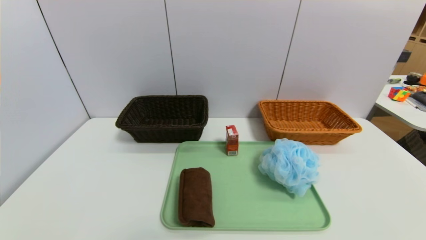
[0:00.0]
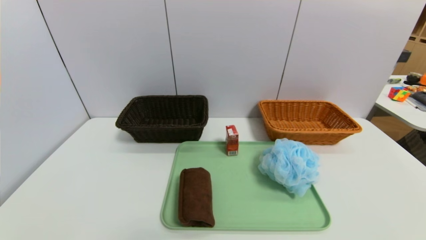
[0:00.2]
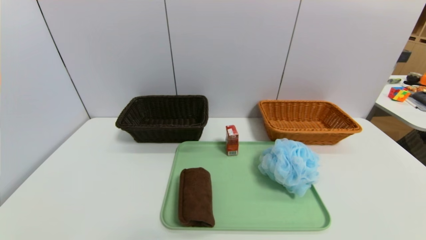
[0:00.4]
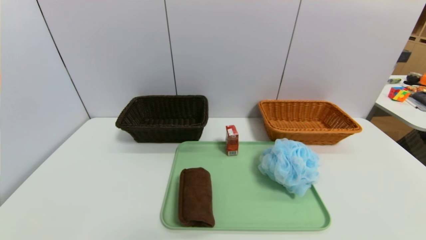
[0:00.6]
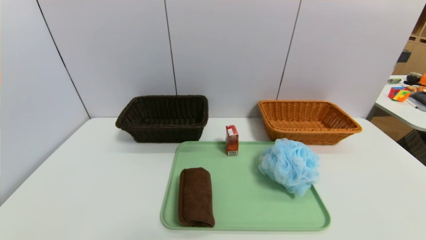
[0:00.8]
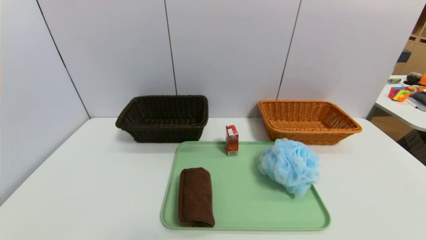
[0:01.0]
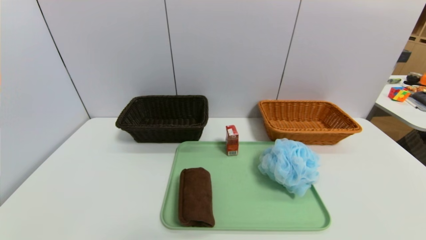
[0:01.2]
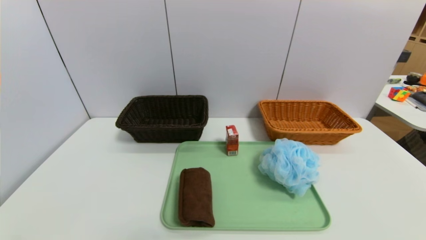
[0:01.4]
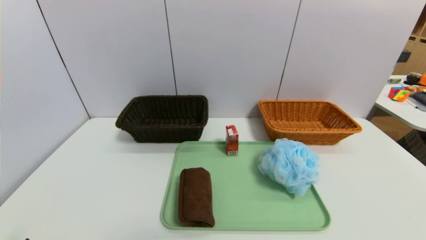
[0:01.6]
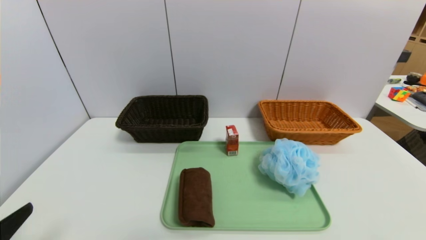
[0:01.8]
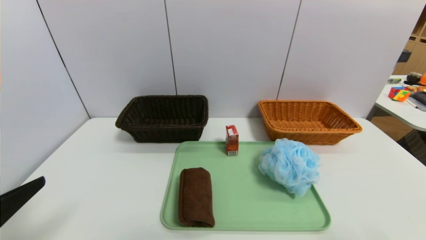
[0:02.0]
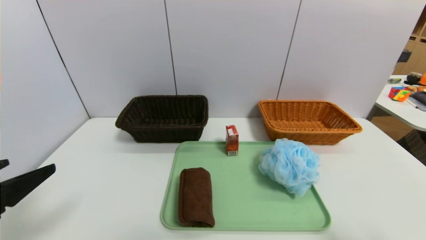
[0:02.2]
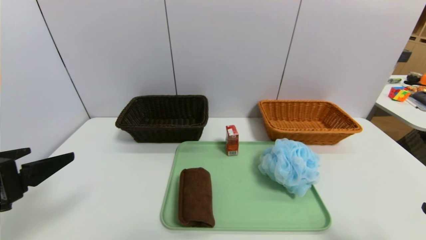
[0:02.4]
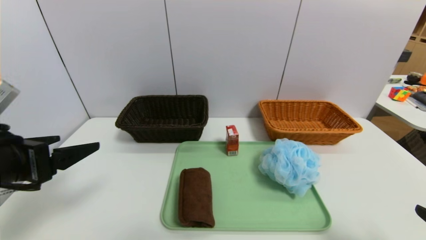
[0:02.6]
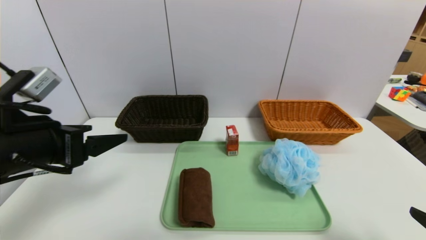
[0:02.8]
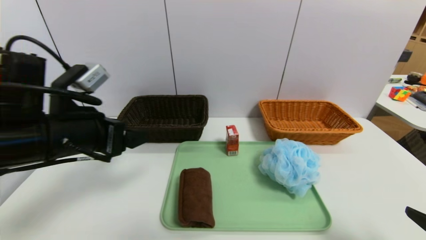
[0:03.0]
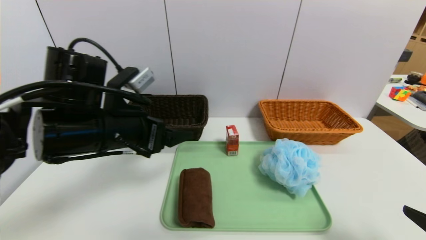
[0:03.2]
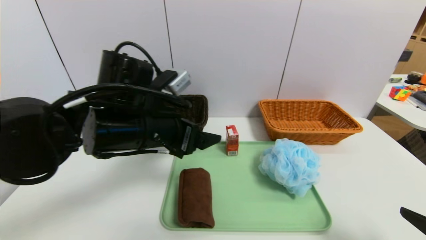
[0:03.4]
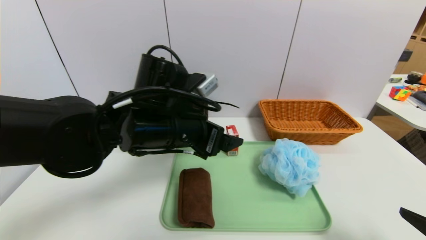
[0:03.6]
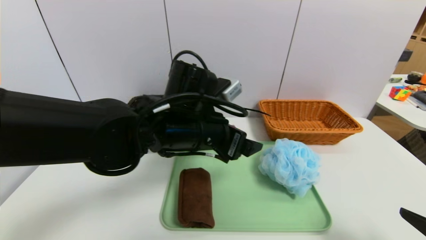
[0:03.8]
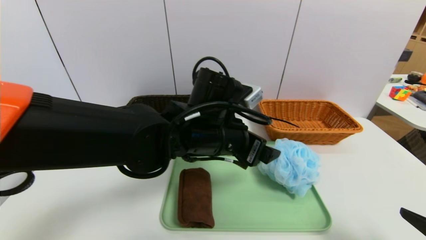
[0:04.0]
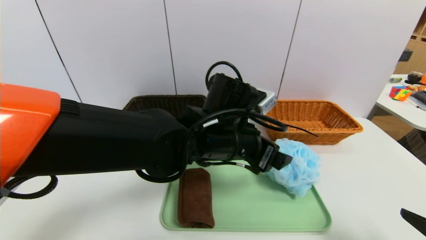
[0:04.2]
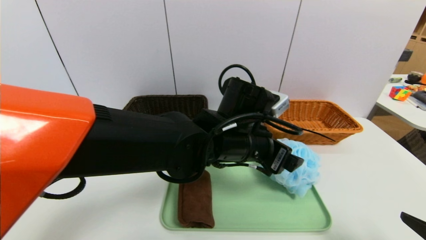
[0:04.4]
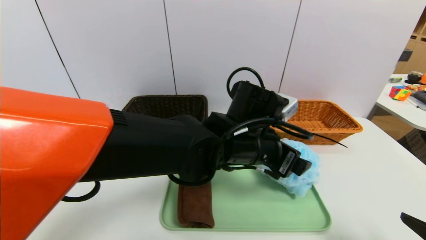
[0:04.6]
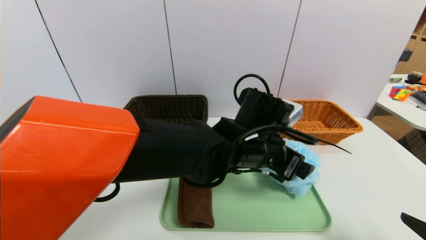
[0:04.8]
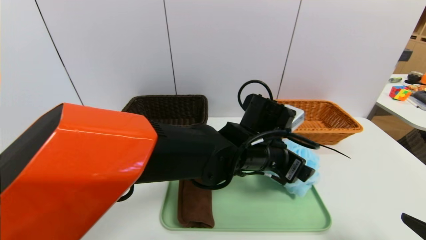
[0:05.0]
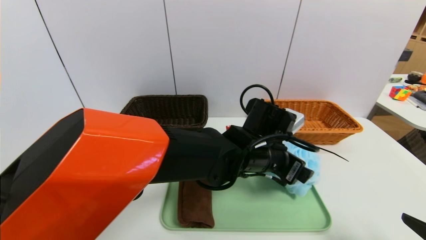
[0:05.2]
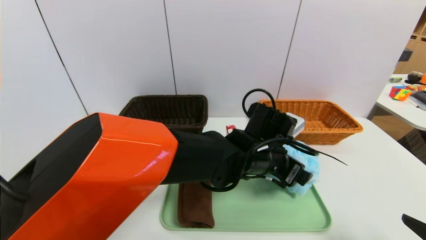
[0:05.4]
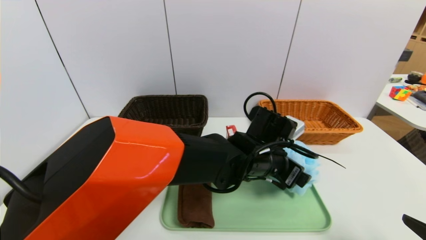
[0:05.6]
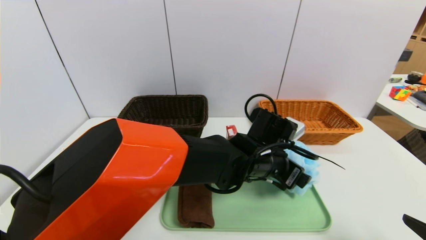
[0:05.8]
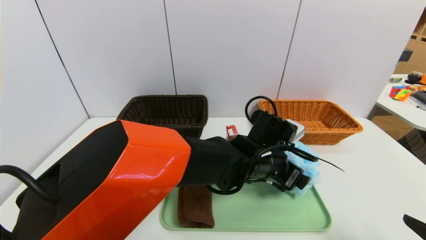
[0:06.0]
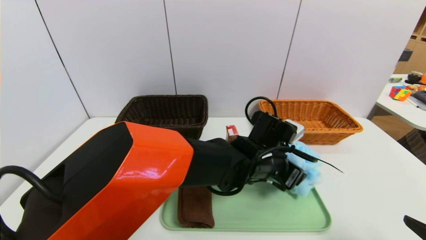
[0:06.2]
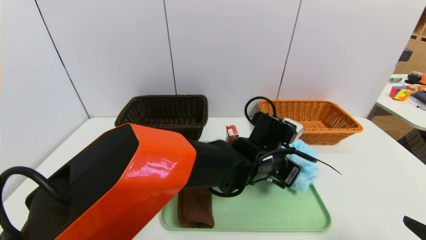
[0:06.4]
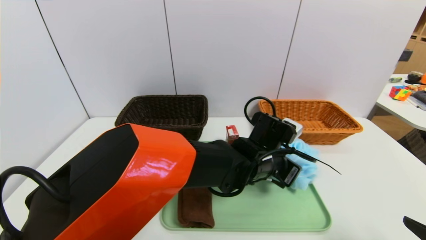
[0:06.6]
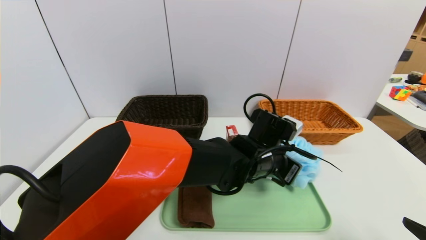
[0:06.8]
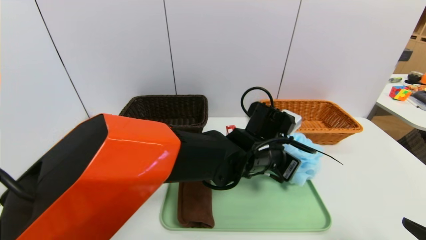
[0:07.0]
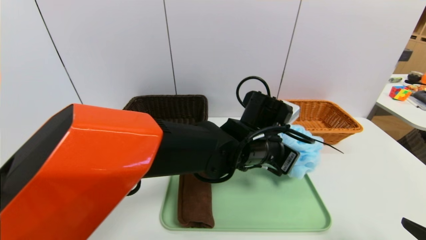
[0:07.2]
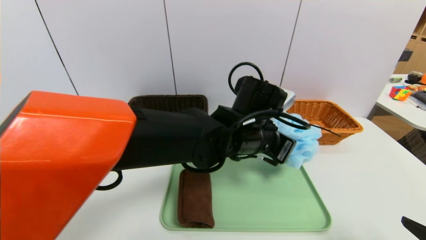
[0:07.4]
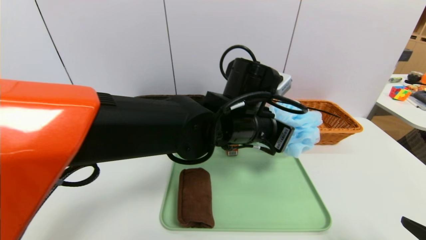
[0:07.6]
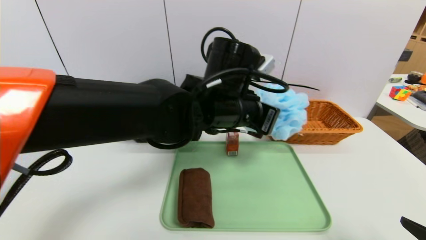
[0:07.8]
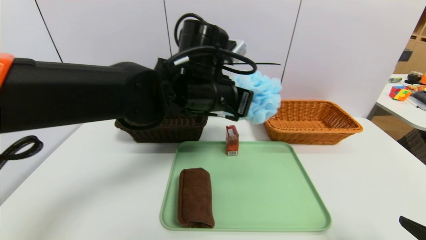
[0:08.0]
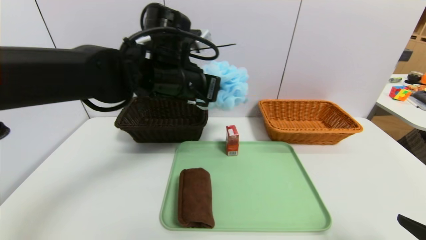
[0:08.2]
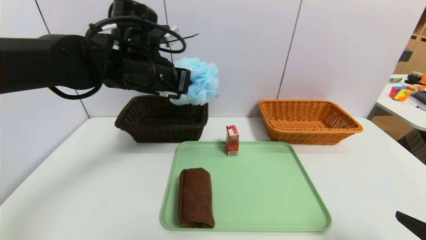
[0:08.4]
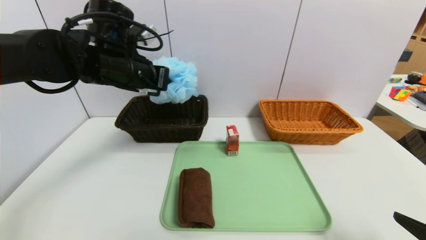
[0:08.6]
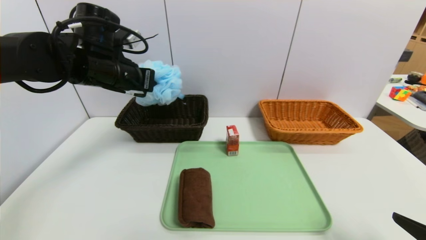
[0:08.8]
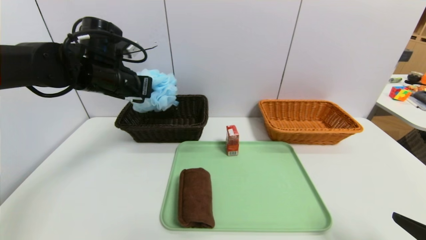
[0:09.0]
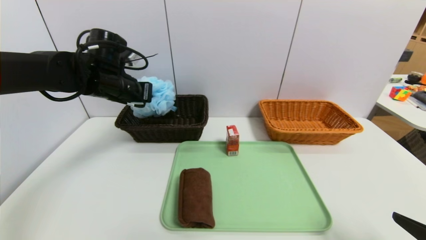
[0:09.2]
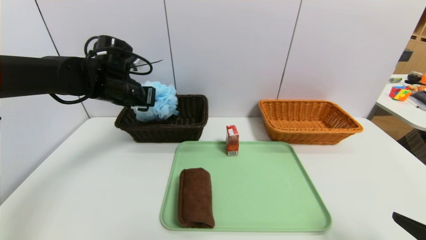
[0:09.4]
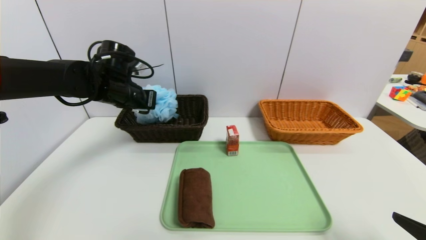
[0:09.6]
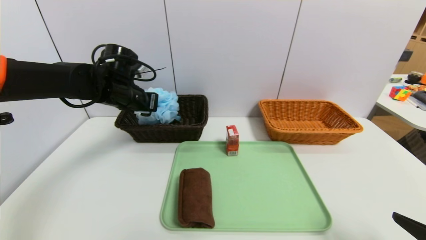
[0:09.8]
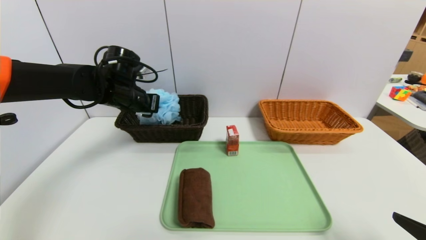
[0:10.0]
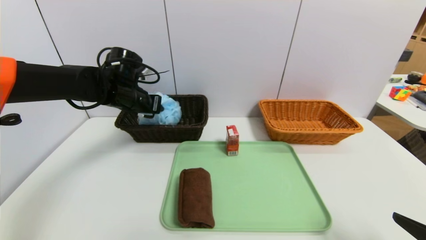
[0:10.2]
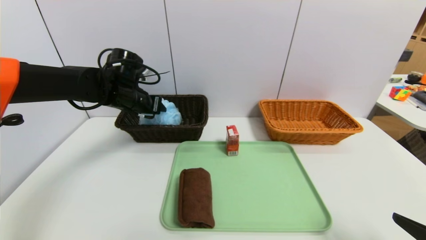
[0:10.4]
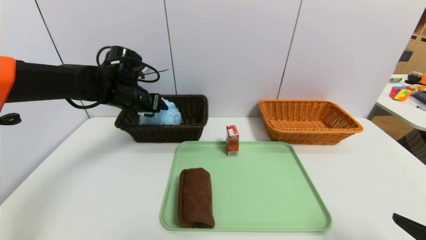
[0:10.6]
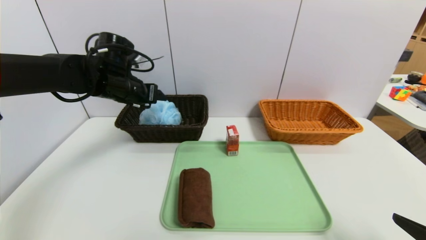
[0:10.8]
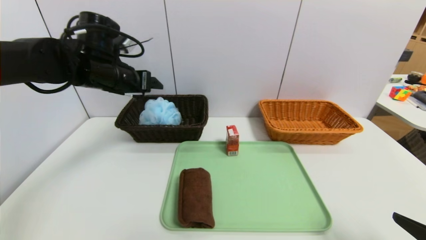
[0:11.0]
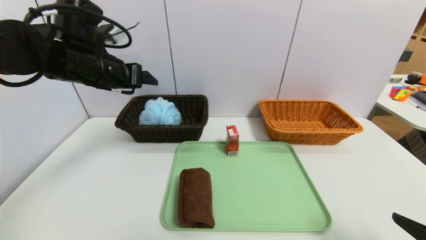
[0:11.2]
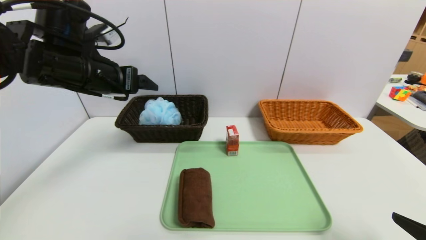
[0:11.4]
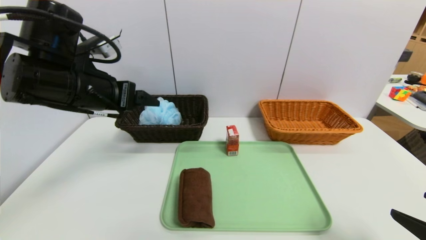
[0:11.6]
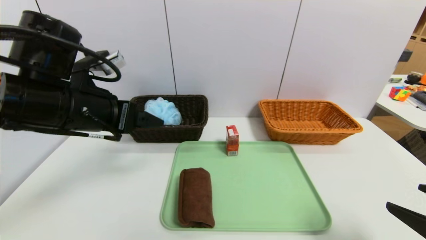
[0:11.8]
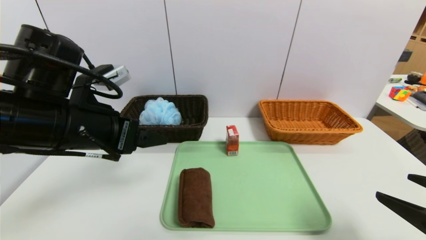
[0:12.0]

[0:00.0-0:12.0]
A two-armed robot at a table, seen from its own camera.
Task of the whole recording: place the food in the right basket with the right gripper, and place the non food items in the left basket with the left gripper.
Step, 0:00.0 to 0:10.6: Grasp the shower sphere and put it in the left basket.
0:01.6 to 0:03.0: The right gripper heads forward, covering some 5 cm. Meanwhile the left gripper travels forward, to the right and upward by some 25 cm.
0:03.0 to 0:04.4: The left gripper is displaced to the right by approximately 25 cm.
0:04.4 to 0:06.0: The left gripper travels downward and to the right by about 10 cm.
0:06.0 to 0:07.6: The left gripper is displaced upward and to the left by roughly 10 cm, and closes up.
0:07.6 to 0:09.0: The left gripper moves to the left, about 25 cm.
0:09.0 to 0:10.4: The left gripper travels downward by roughly 5 cm, and opens up.
0:10.4 to 0:12.0: The left gripper moves backward, some 20 cm, and opens up.

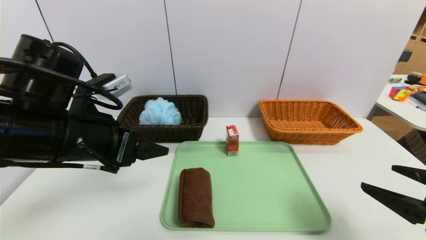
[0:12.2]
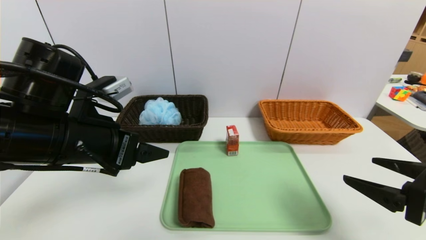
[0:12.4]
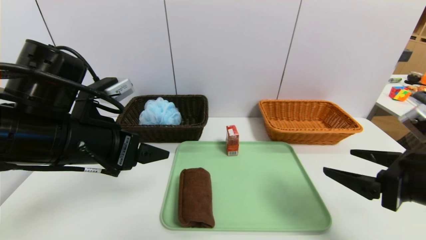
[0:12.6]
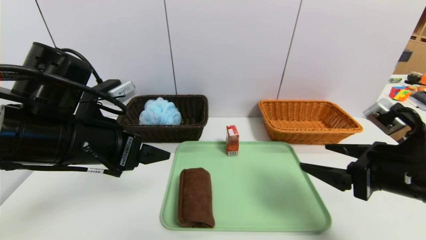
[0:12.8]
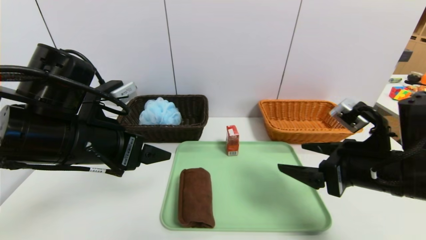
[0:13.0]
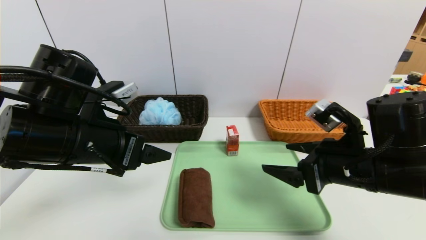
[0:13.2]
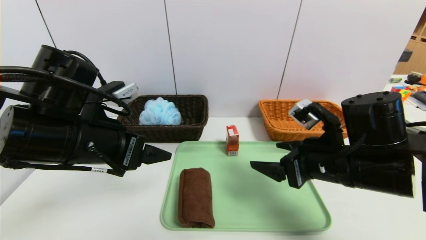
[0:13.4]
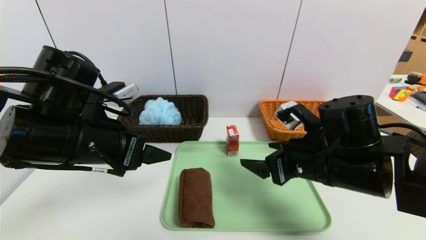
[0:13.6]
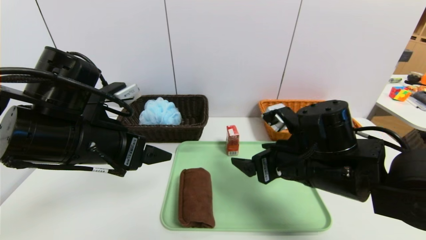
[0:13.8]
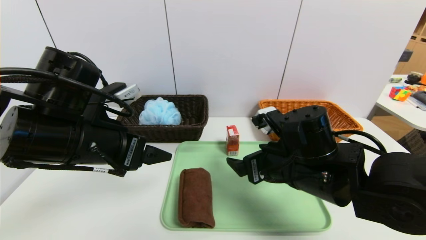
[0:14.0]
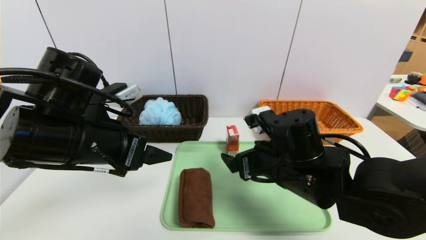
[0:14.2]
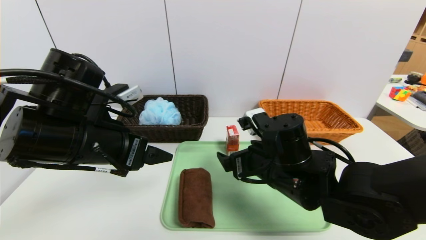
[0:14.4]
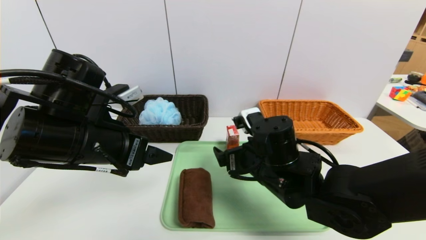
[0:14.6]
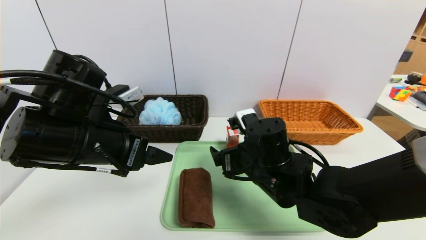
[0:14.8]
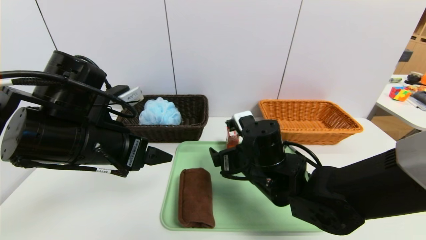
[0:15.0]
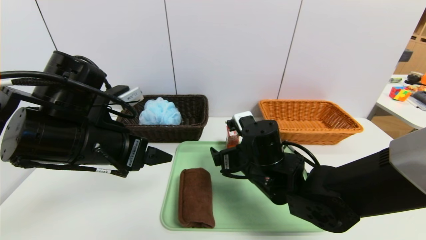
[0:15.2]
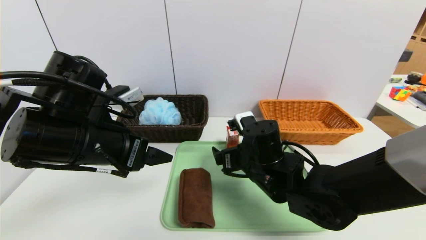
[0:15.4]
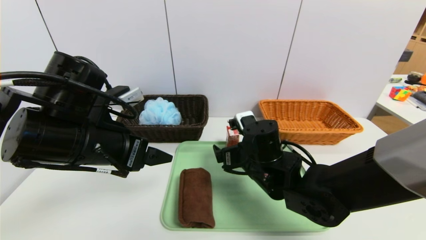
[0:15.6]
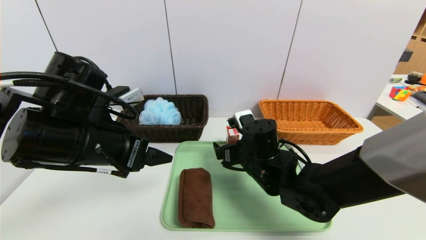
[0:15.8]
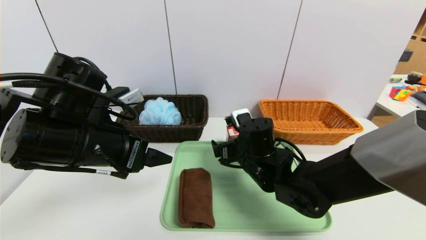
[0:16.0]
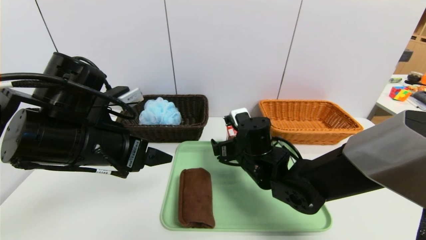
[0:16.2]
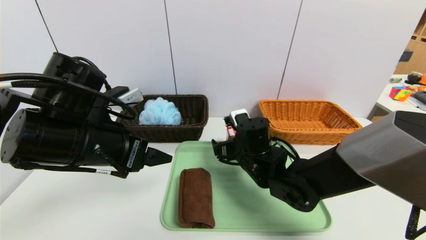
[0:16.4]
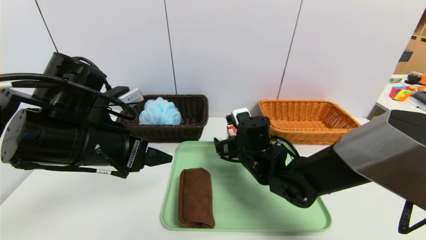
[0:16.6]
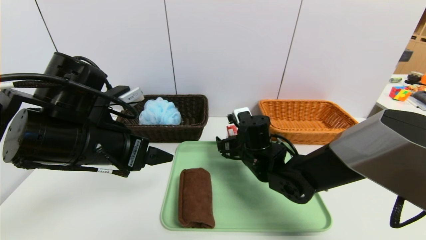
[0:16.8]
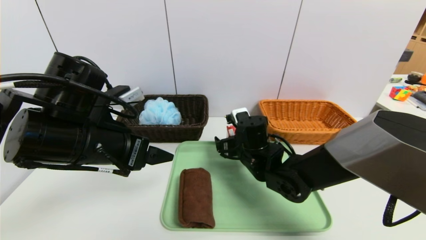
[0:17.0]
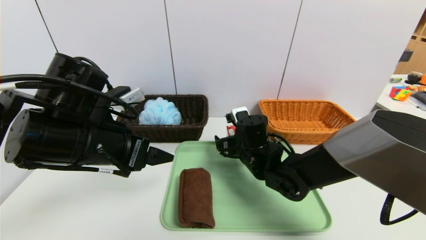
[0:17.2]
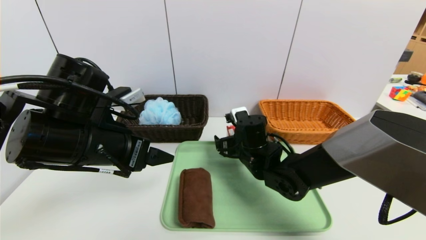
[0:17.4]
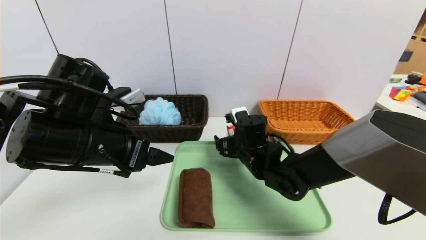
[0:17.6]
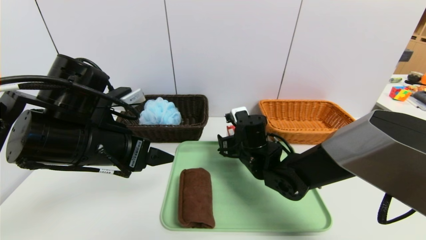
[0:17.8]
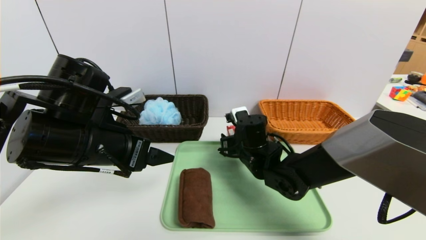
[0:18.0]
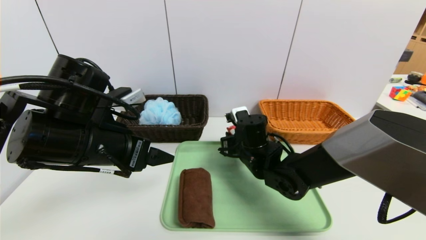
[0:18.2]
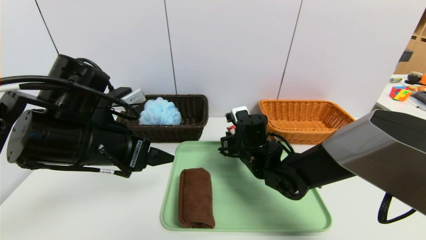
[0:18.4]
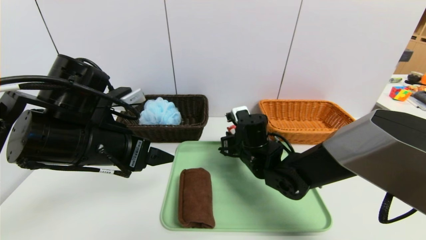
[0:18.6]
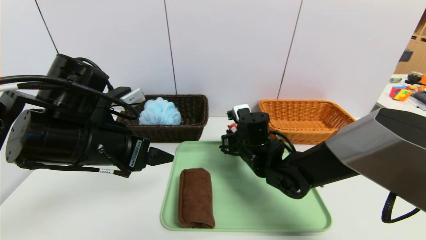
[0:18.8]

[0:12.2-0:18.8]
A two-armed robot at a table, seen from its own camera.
Task of the whole recording: place the food in the right basket with the right gripper, and place the non food items in the left basket with the left gripper.
0:12.2 to 0:13.8: The right gripper shifts some 20 cm to the left and forward.
0:13.8 to 0:15.4: The right gripper travels to the left by about 5 cm.
0:15.4 to 0:17.2: The right gripper heads forward, covering approximately 5 cm.
0:17.2 to 0:18.8: The right gripper closes up.
